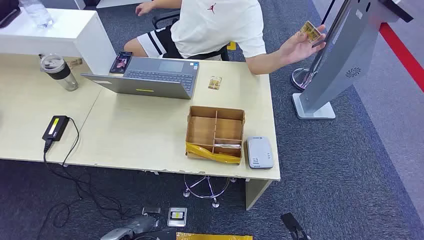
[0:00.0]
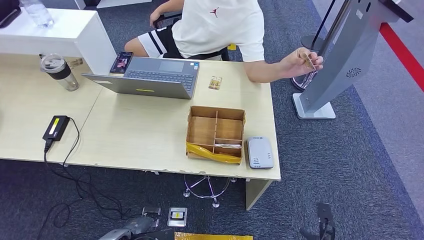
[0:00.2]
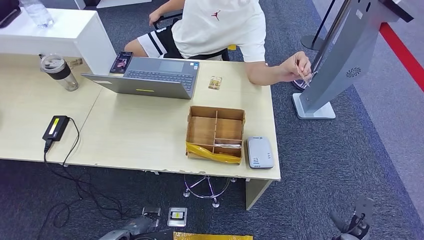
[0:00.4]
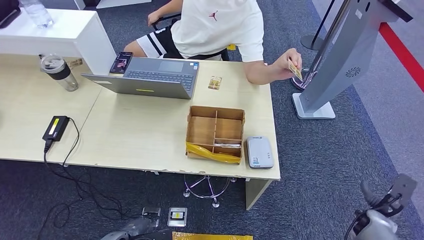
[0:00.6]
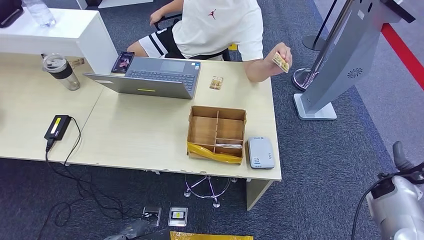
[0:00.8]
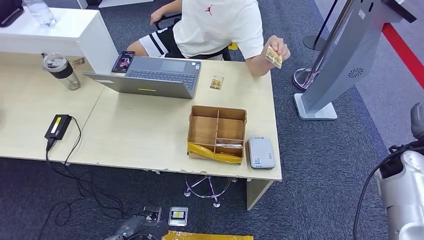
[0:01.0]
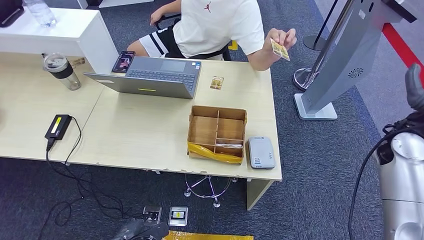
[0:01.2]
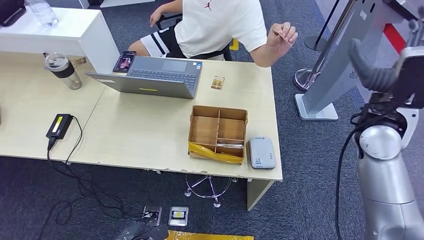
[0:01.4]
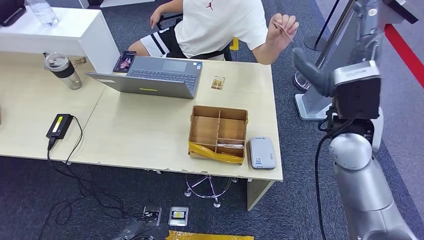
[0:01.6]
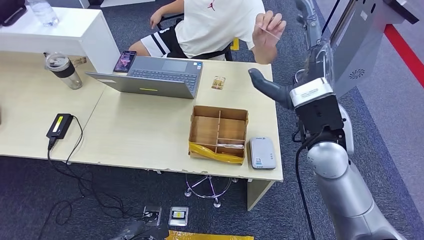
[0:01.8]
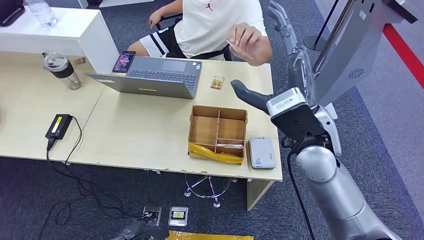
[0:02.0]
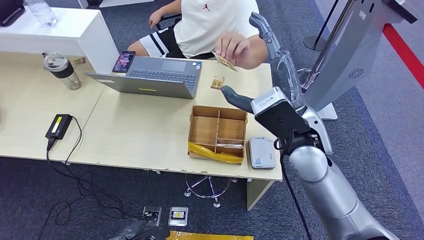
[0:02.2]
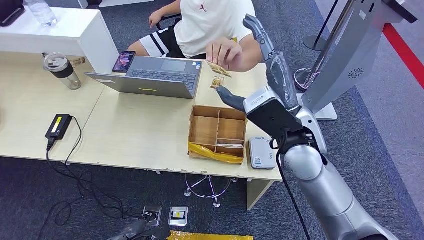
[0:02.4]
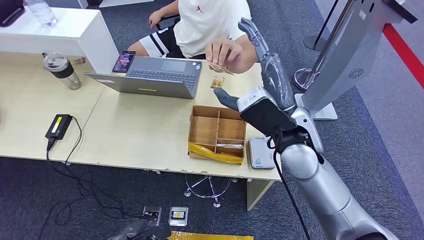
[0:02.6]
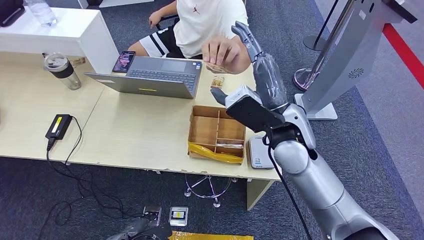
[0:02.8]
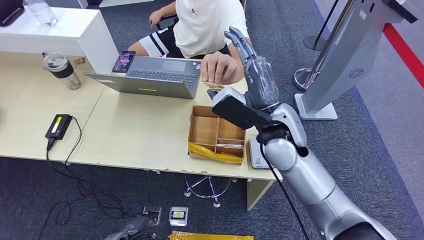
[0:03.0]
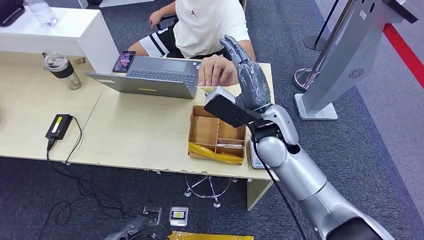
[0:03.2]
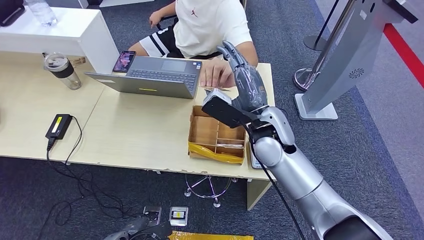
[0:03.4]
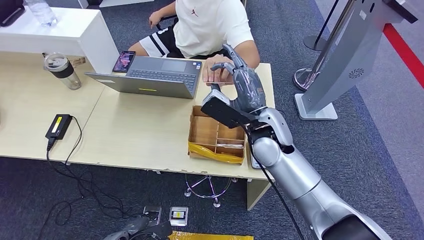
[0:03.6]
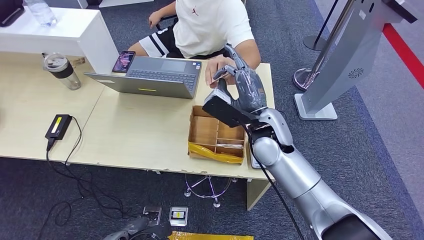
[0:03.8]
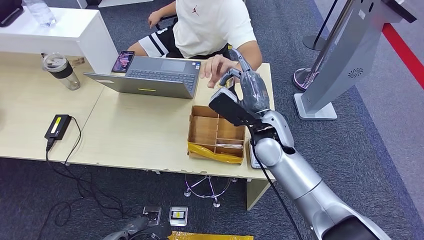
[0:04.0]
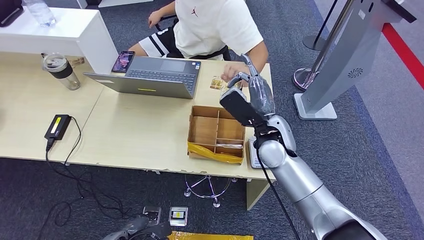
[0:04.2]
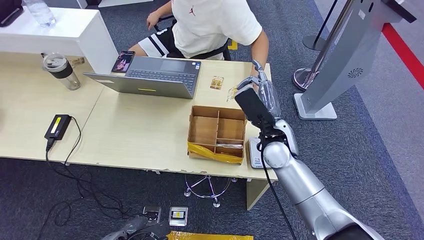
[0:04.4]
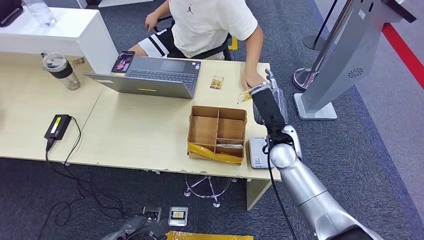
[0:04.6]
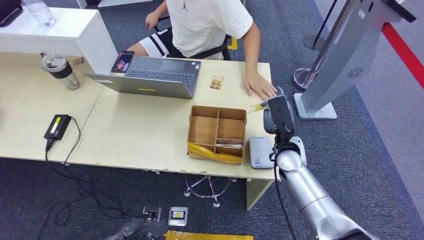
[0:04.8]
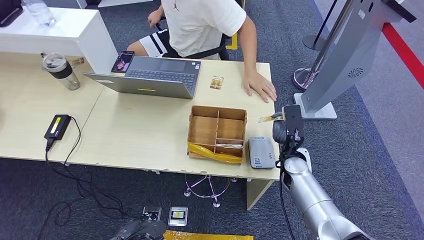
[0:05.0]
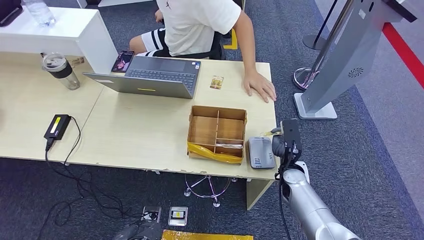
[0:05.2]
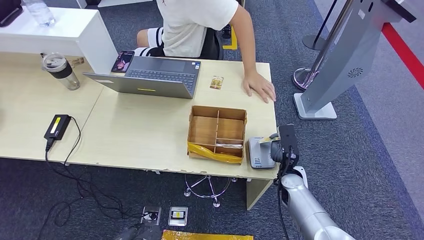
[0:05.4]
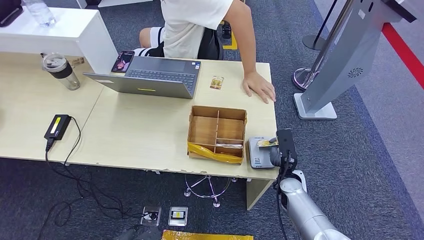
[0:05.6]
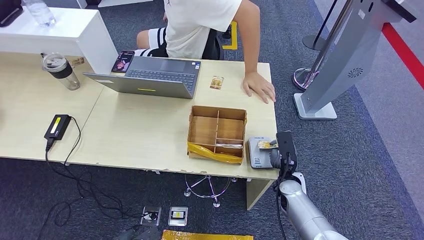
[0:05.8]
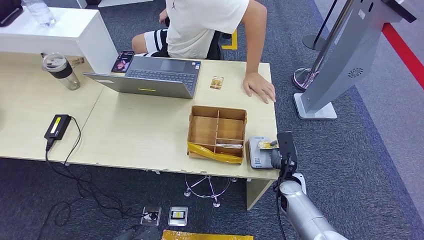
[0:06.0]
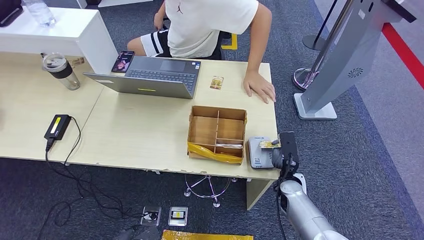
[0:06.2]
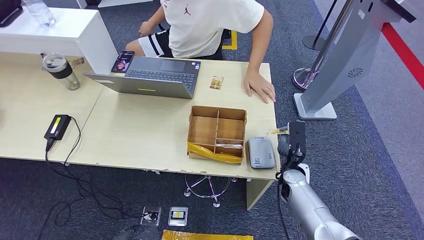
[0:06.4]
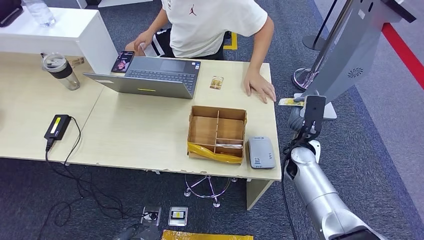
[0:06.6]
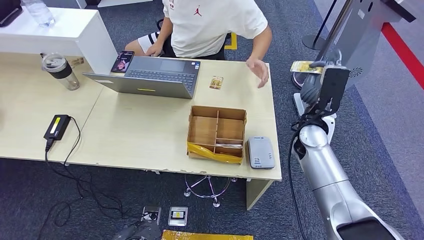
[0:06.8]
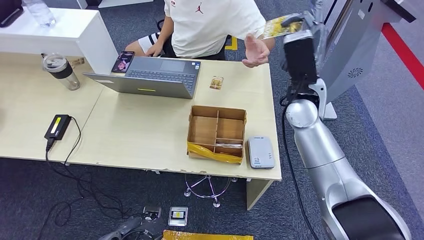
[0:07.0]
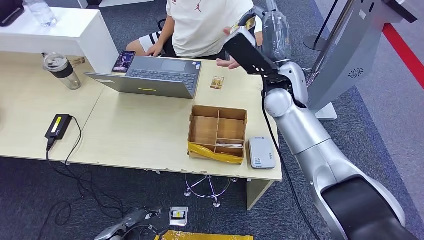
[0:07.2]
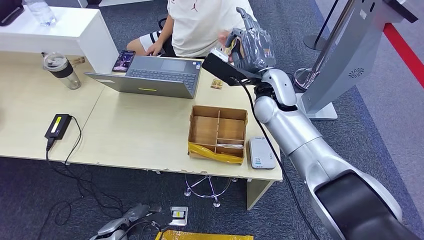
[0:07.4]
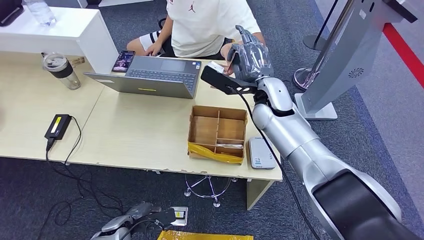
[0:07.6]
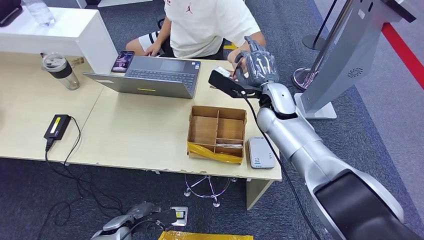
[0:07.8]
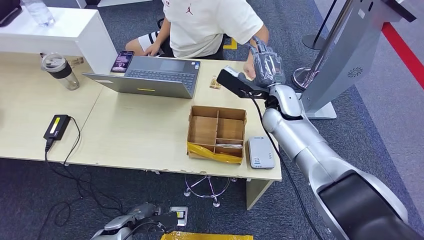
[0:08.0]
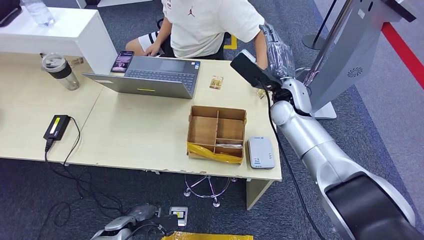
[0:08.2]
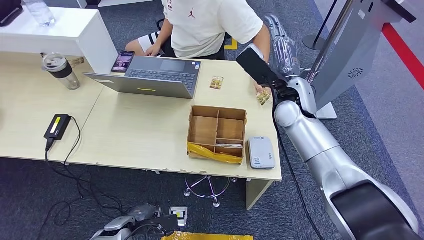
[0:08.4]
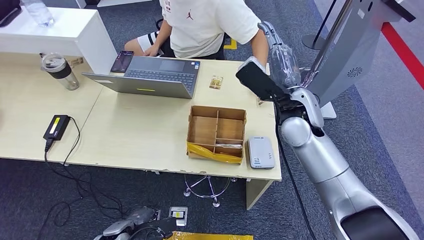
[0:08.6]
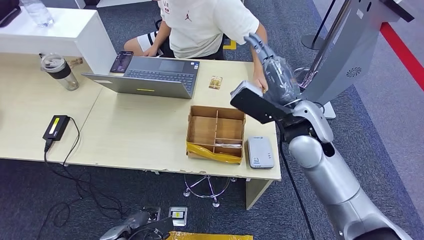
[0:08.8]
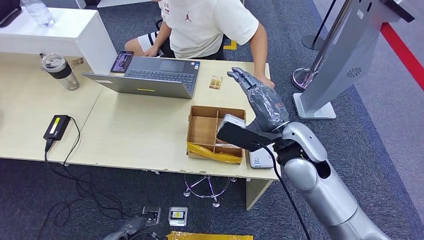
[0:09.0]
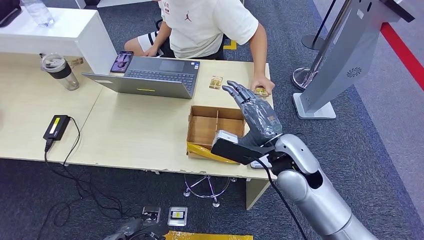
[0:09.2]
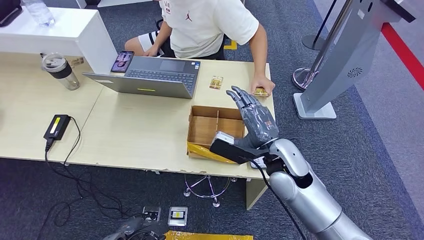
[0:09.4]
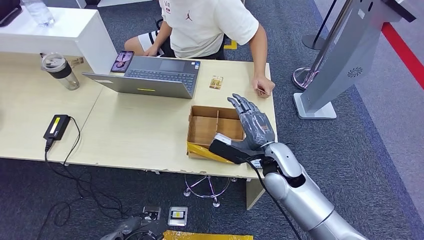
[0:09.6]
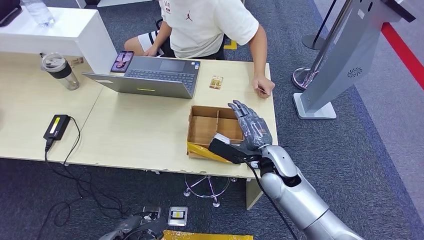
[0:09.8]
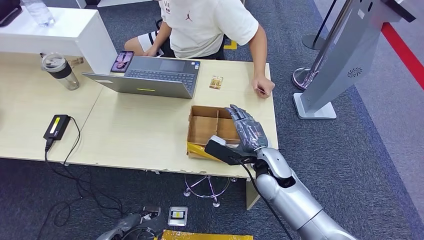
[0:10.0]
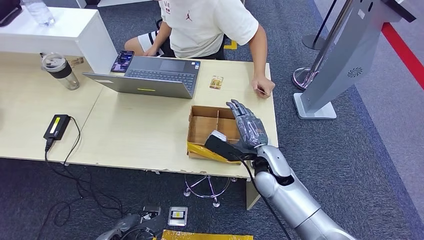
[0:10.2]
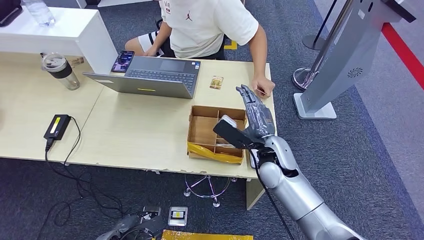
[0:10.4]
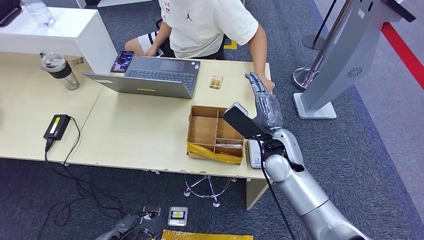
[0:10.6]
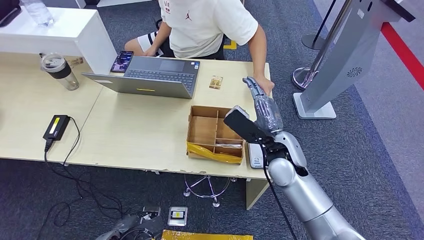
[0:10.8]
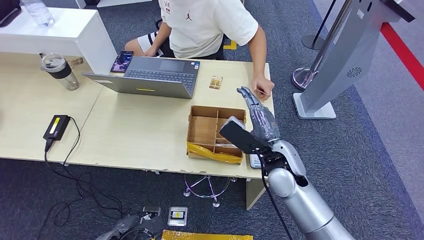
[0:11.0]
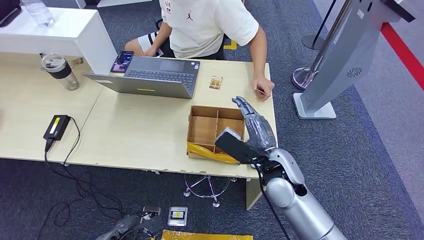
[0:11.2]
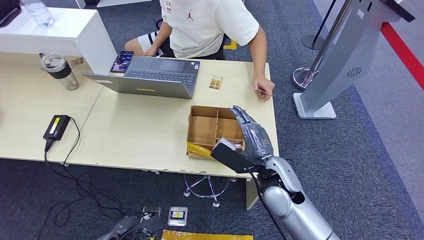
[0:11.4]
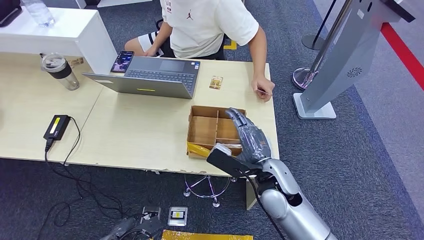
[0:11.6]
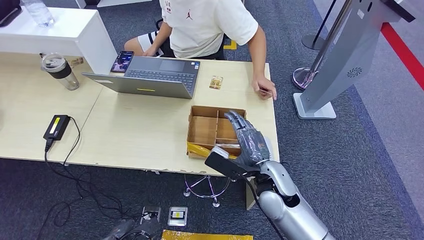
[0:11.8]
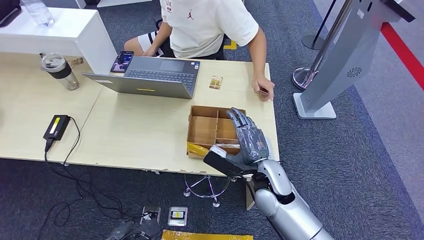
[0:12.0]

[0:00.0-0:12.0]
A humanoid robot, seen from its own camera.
Step, 0:00.0 to 0:04.0: Take the ID card from the person's hand.
Step, 0:04.4 to 0:06.0: Place the ID card on the card reader.
Step, 0:06.2 to 0:08.4: Hand the ID card to the person.
0:03.0 to 0:04.4: The right hand heads downward, covering about 10 cm.
0:04.4 to 0:06.0: The left hand shifts by about 5 cm. Meanwhile the right hand heads downward, covering roughly 20 cm.
0:06.0 to 0:07.6: The left hand shifts roughly 10 cm forward. Meanwhile the right hand moves upward and forward, about 30 cm.
0:09.0 to 0:10.4: The right hand heads downward, covering about 10 cm.
0:10.4 to 0:12.0: The right hand moves about 5 cm.

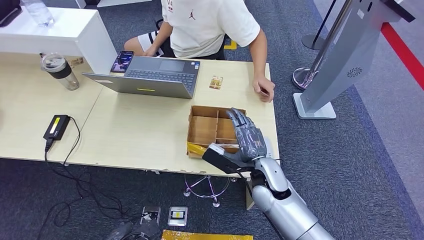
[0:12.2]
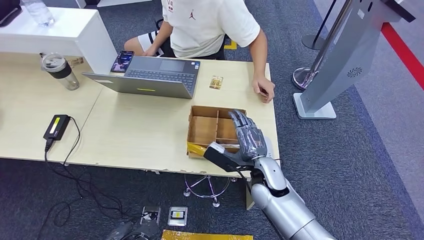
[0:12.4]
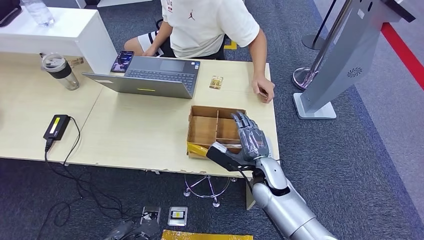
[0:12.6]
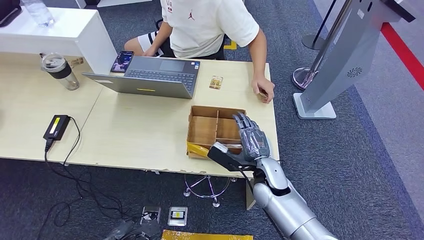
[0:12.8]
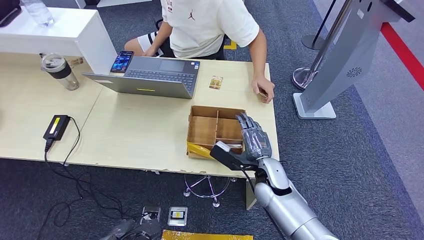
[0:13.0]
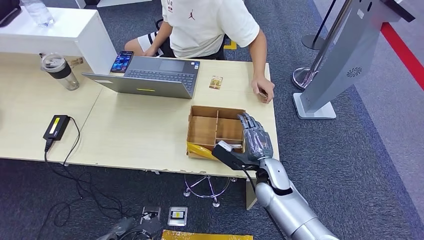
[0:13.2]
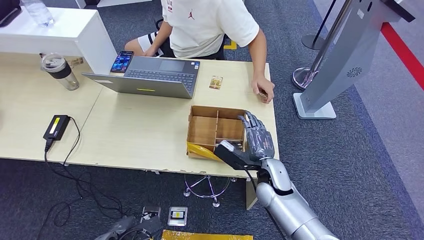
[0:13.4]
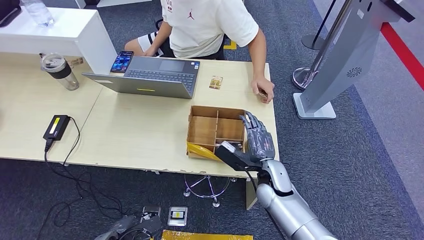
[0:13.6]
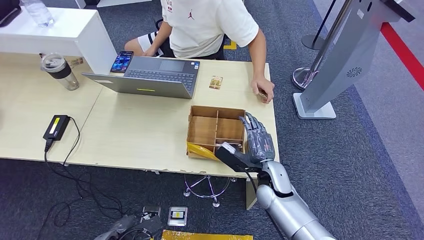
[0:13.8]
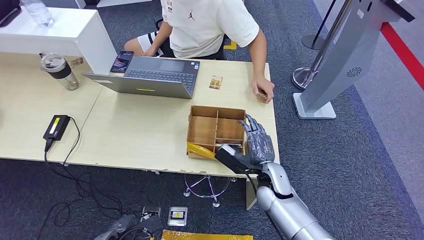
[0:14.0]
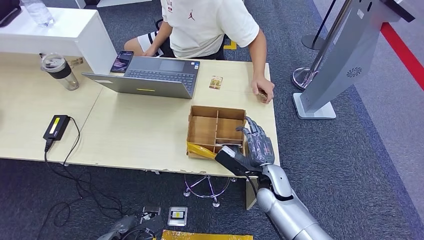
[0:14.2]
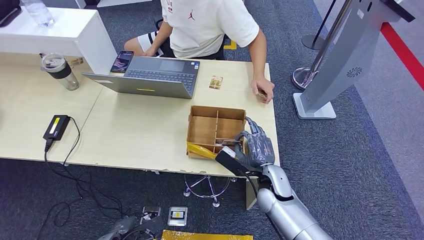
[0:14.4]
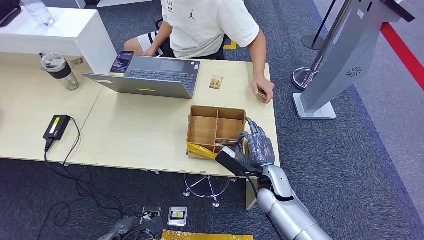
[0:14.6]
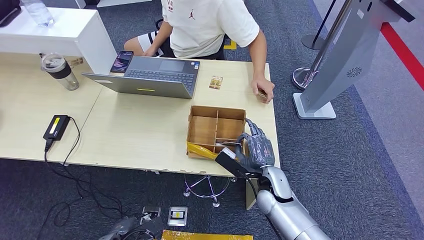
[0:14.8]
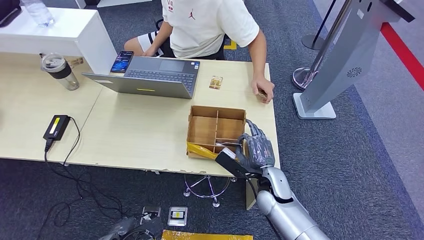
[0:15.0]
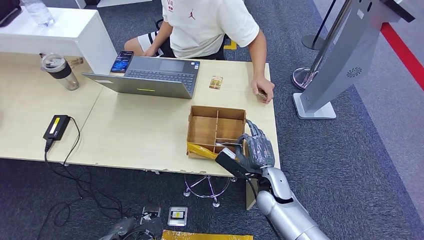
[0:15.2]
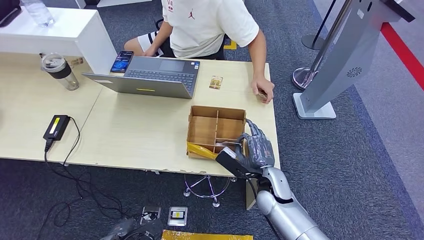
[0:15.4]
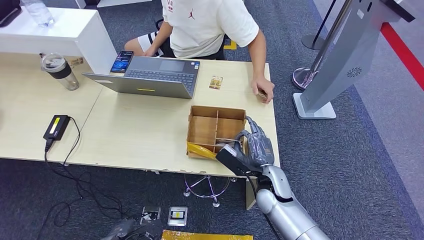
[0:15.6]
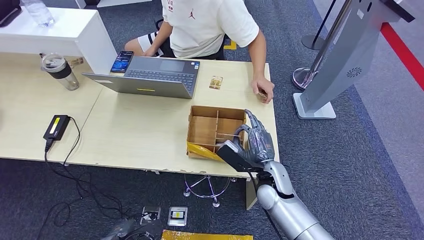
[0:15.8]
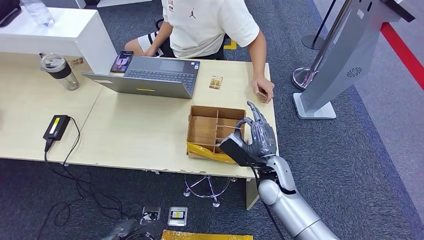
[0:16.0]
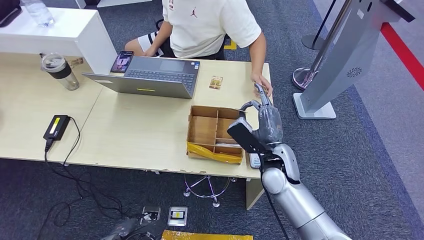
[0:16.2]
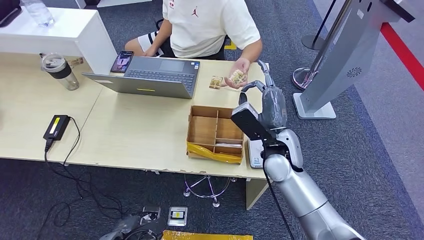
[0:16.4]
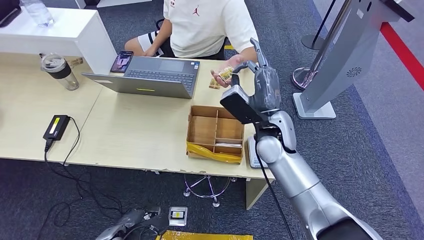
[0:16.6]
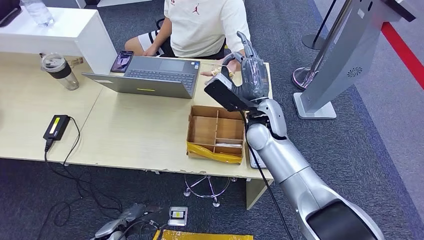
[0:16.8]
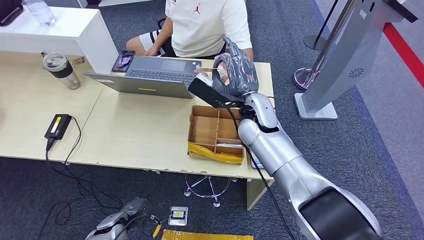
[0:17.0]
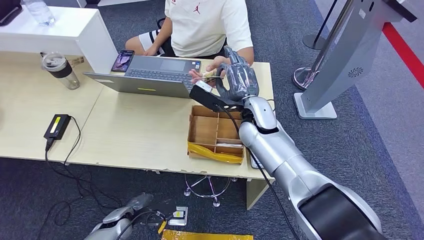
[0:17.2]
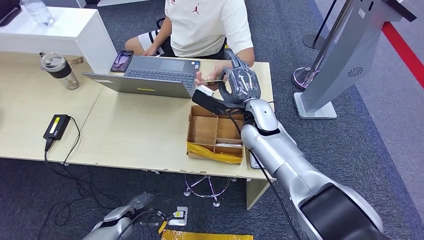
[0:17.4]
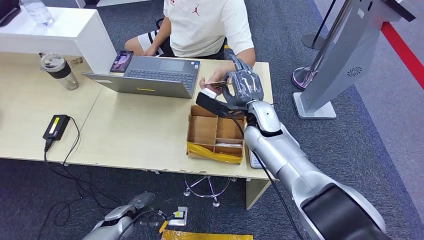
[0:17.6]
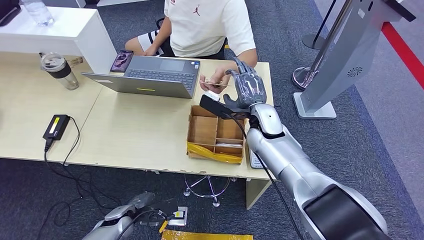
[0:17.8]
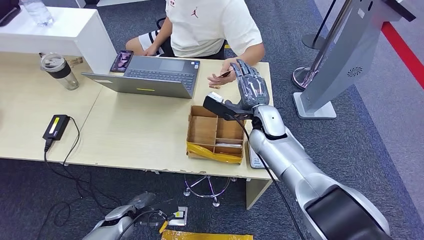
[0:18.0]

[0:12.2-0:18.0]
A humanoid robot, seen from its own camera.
Step, 0:12.2 to 0:16.0: Pick up the room key from the key card box.
Step, 0:16.4 to 0:18.0: Hand the room key to the person.
0:12.2 to 0:15.0: The hands stay close to where they were, moving slightly.
0:15.0 to 0:16.6: The right hand moves upward and forward, roughly 20 cm.
0:16.6 to 0:18.0: The right hand ends up roughly 5 cm from where it was; the left hand travels forward by some 5 cm.
